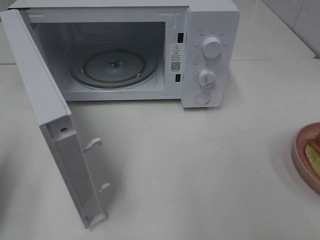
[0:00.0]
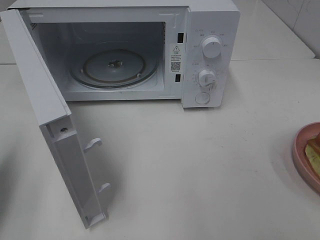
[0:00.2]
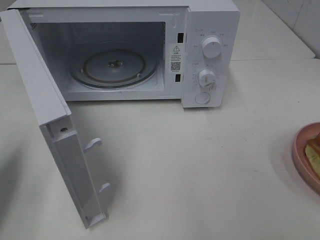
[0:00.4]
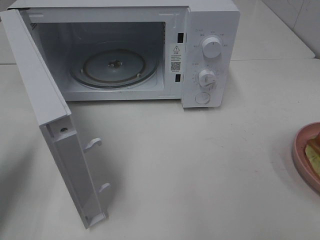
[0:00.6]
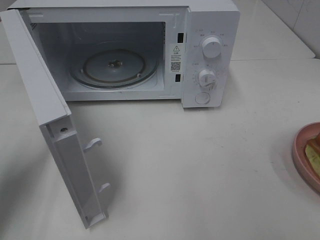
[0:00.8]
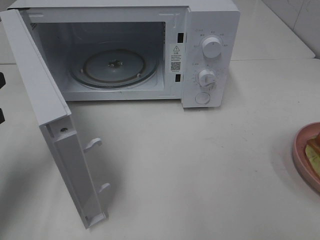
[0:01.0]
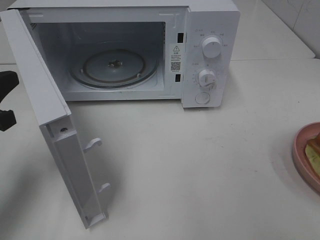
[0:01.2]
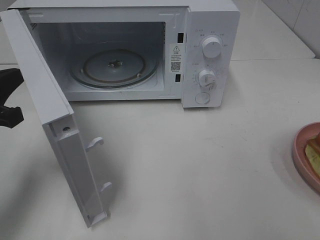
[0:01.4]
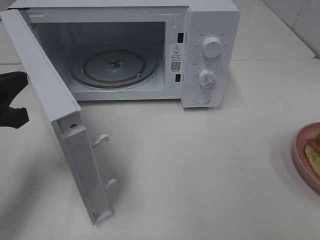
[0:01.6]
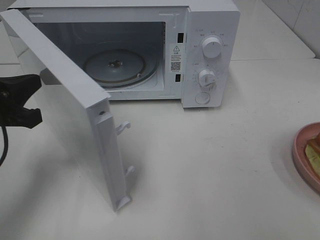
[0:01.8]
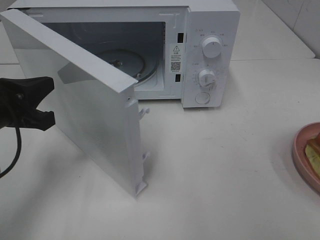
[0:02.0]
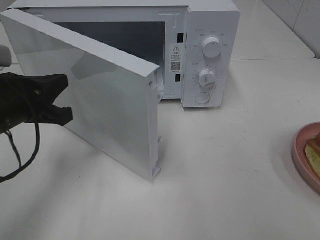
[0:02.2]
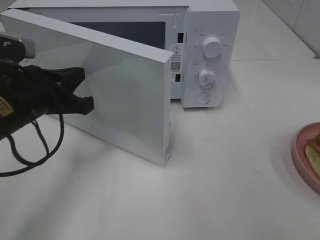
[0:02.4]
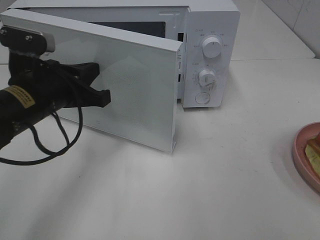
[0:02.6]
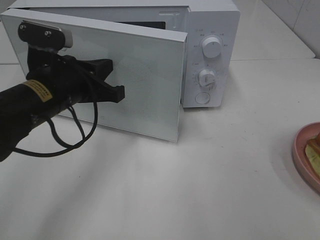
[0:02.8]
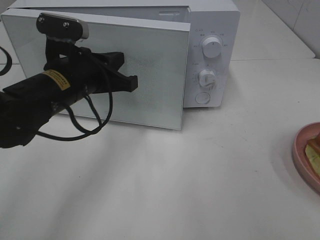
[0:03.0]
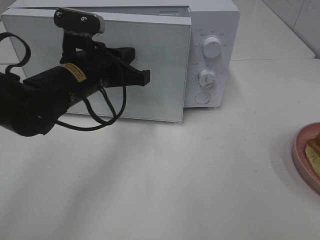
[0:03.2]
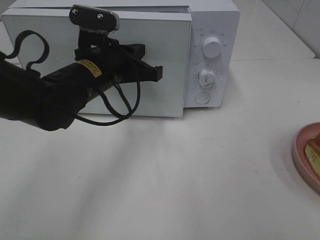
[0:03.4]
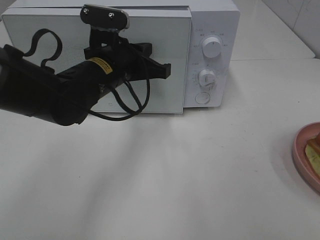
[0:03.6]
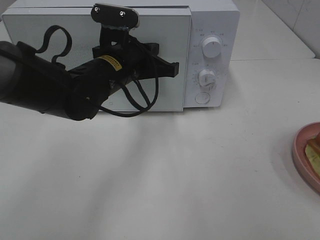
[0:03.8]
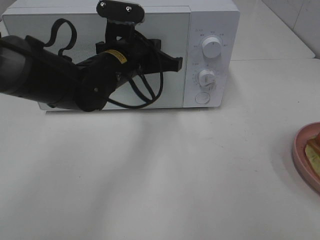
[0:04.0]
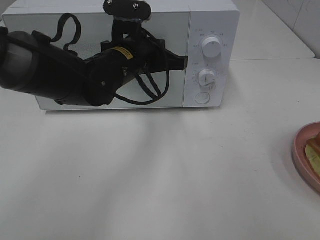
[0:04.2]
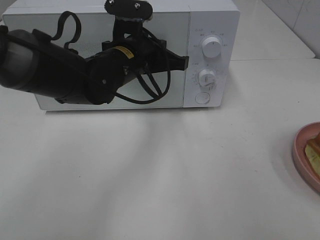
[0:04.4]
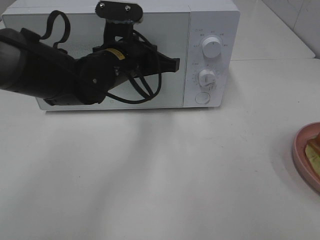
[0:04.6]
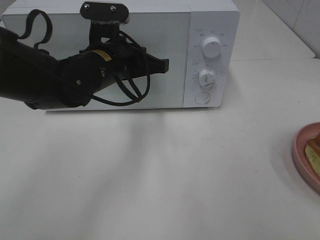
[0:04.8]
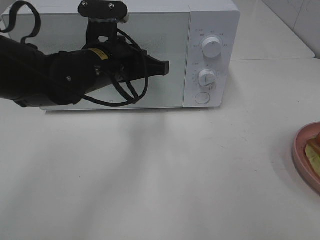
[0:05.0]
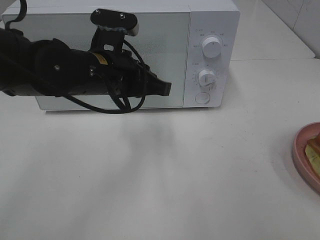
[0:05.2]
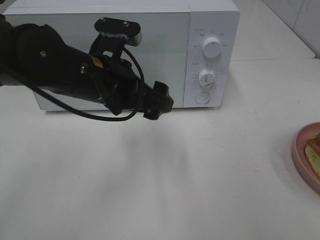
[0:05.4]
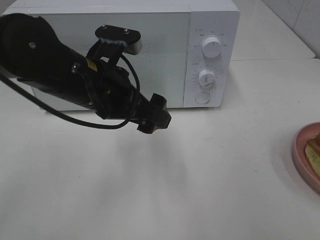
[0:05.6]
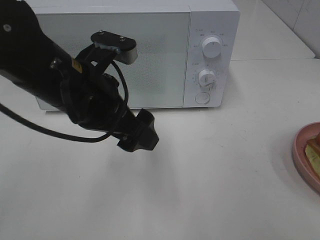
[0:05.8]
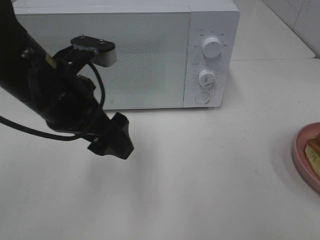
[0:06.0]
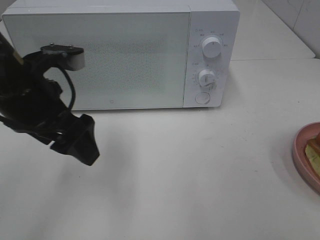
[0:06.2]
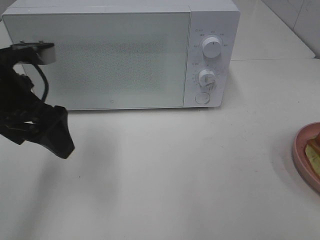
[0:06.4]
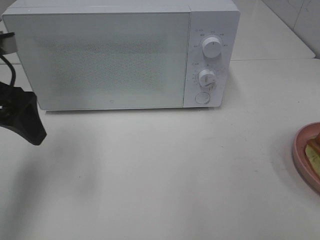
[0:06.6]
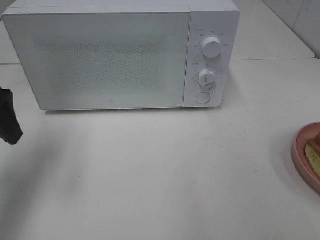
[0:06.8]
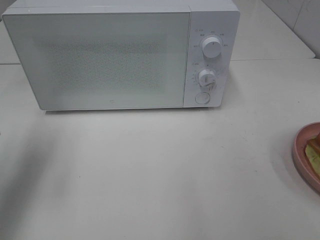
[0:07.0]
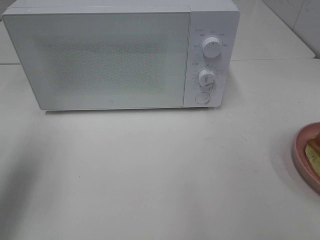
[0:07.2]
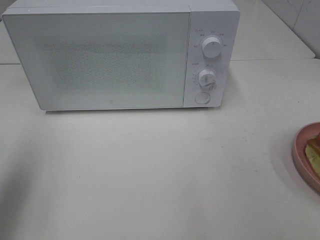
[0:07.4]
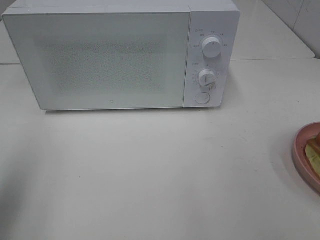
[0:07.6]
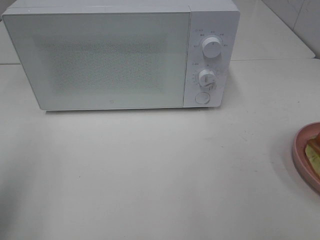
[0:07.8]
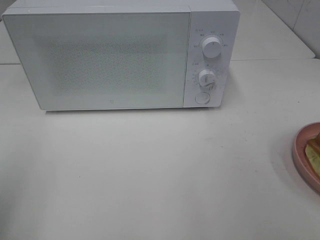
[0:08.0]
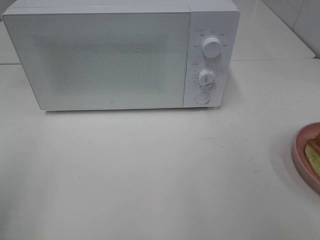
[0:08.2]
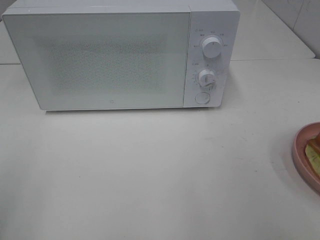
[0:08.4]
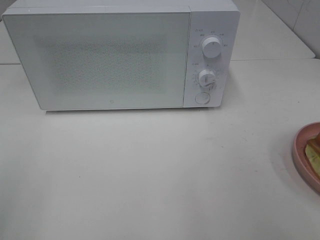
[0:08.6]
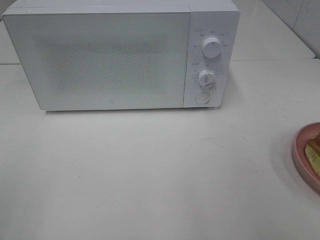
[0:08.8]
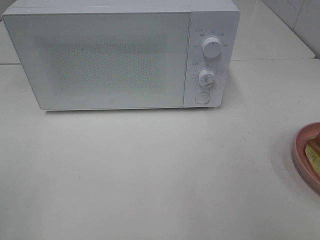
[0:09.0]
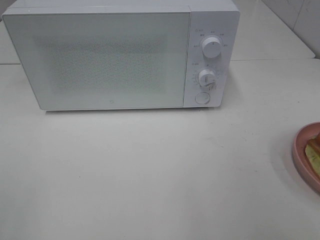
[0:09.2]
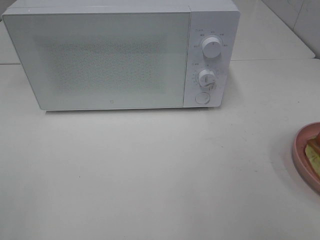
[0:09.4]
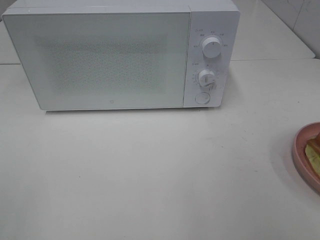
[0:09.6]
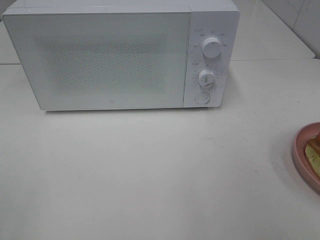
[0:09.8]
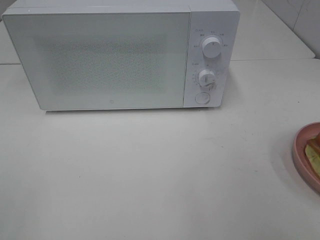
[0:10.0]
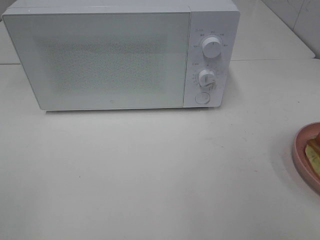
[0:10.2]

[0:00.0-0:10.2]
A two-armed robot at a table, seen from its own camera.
Task of the whole recording: Heat Sandwich.
Step, 0:00.0 to 0:05.4: Left hand: close the microwave door.
0:00.0 to 0:01.4: The left gripper moves to the right and forward, about 10 cm.
0:01.4 to 0:03.0: The left gripper heads to the right and forward, covering some 15 cm.
0:03.0 to 0:04.4: The left gripper shifts about 10 cm to the right and forward.
0:04.4 to 0:05.8: The left gripper shifts some 10 cm backward, and opens its fingers.
0:05.8 to 0:07.2: The left gripper goes some 20 cm to the left.
0:07.2 to 0:08.8: The left gripper goes about 20 cm backward.
